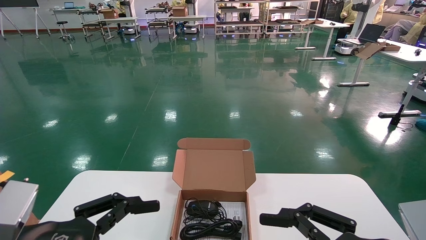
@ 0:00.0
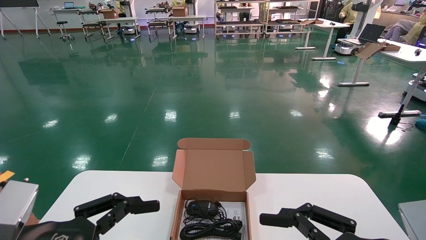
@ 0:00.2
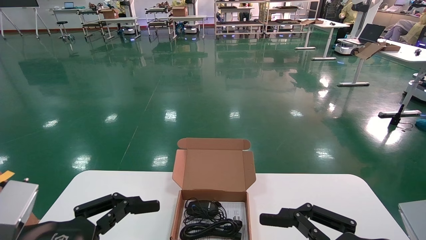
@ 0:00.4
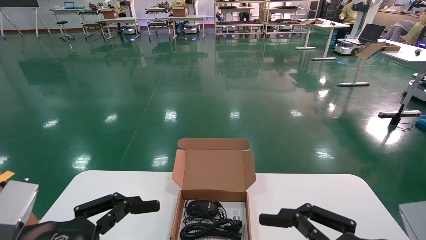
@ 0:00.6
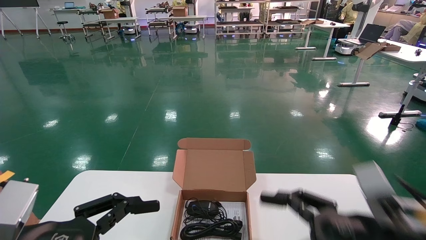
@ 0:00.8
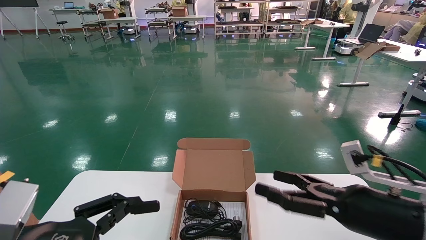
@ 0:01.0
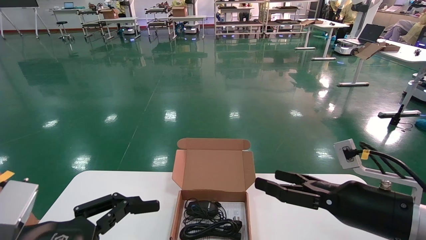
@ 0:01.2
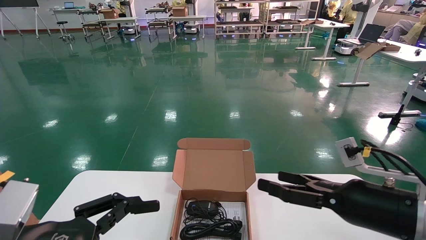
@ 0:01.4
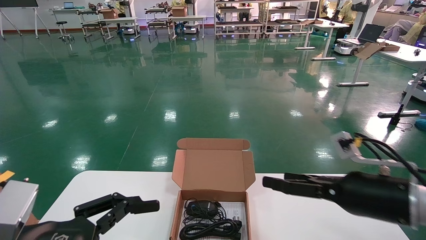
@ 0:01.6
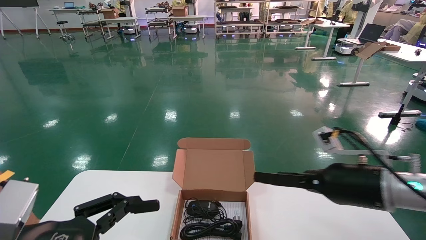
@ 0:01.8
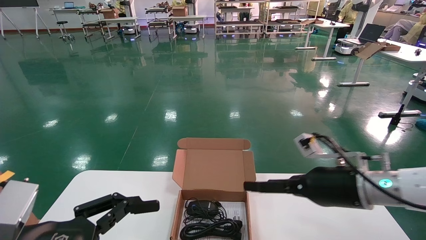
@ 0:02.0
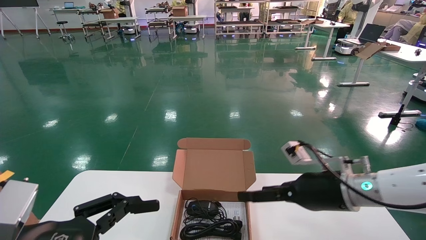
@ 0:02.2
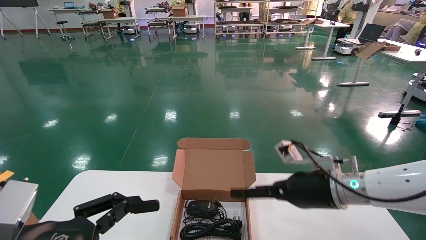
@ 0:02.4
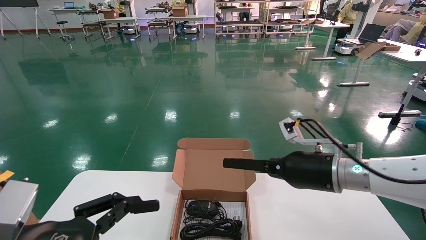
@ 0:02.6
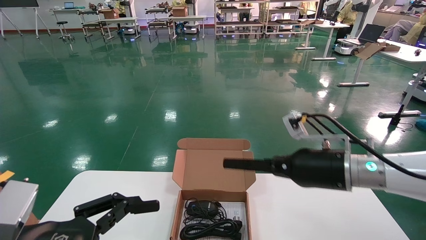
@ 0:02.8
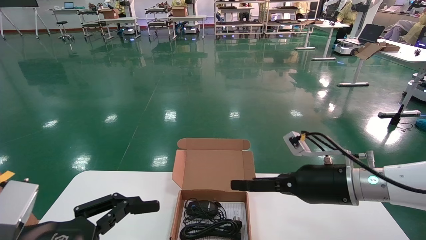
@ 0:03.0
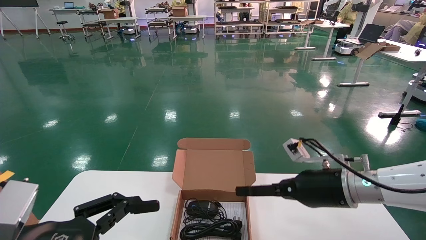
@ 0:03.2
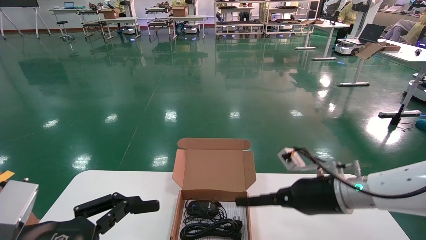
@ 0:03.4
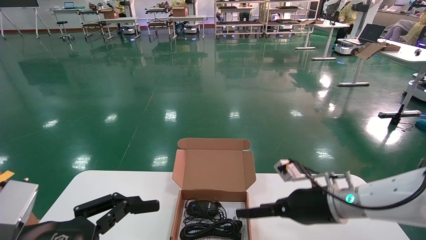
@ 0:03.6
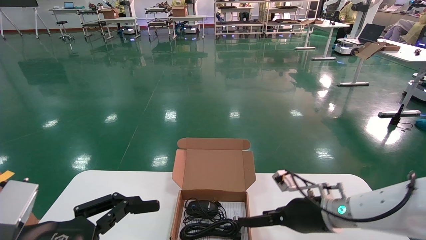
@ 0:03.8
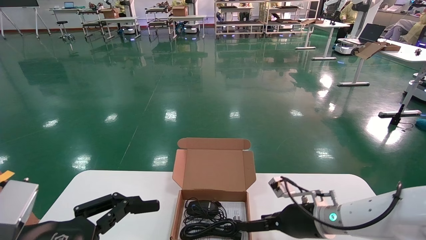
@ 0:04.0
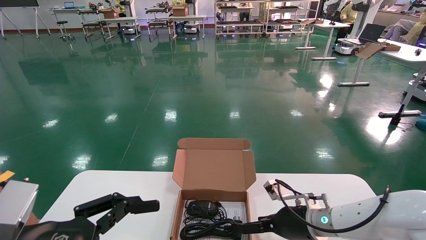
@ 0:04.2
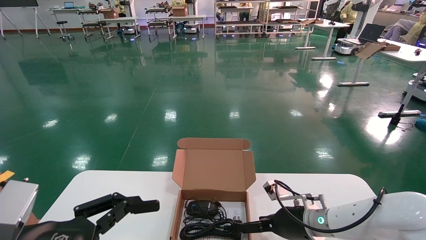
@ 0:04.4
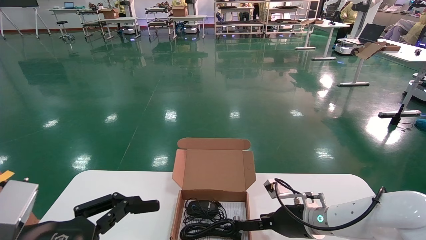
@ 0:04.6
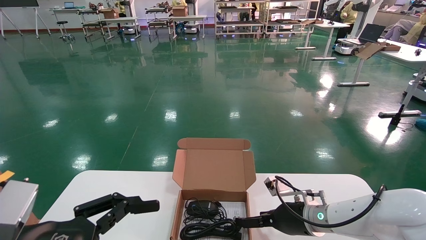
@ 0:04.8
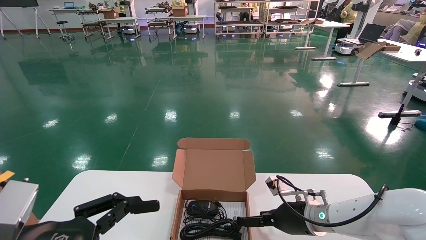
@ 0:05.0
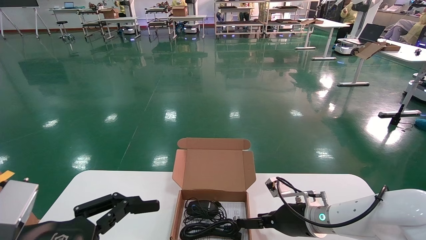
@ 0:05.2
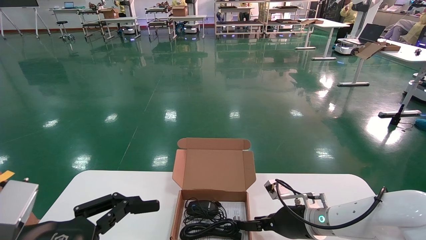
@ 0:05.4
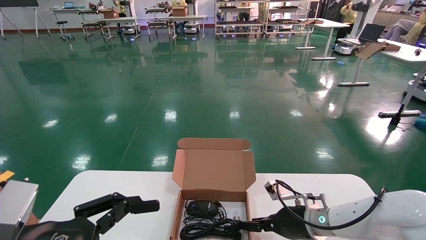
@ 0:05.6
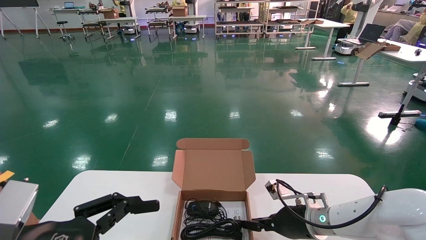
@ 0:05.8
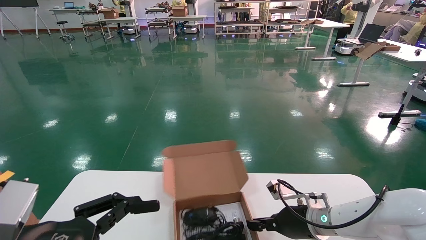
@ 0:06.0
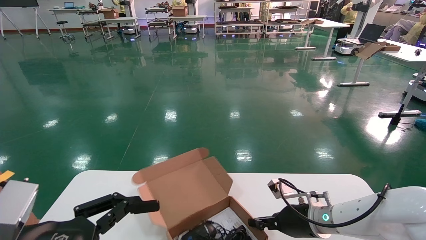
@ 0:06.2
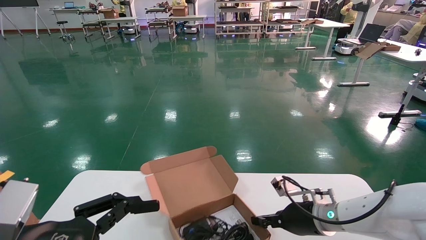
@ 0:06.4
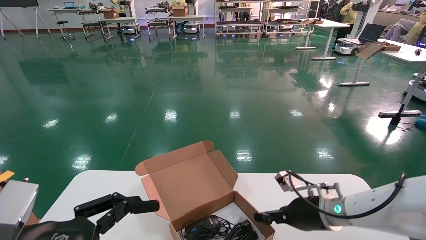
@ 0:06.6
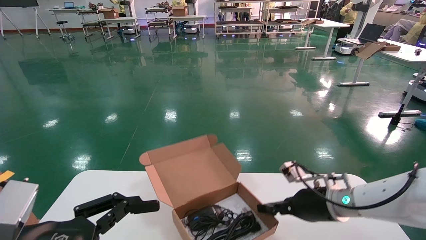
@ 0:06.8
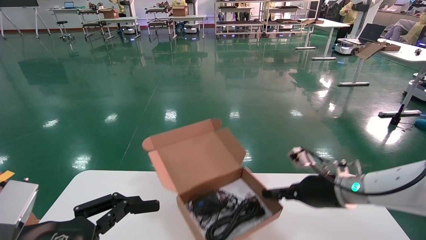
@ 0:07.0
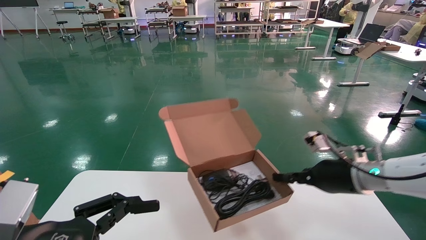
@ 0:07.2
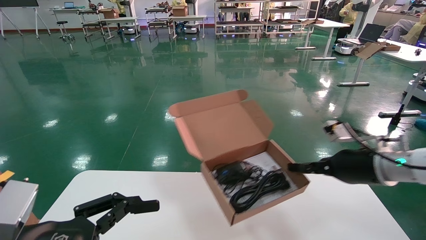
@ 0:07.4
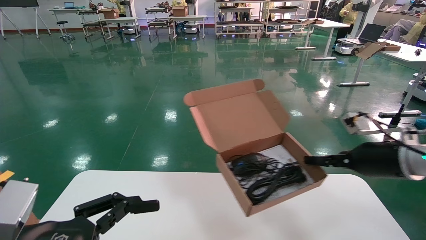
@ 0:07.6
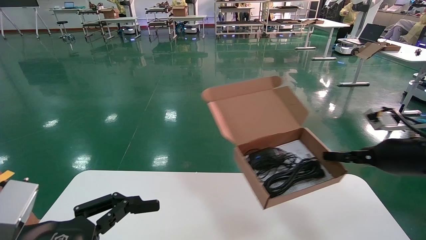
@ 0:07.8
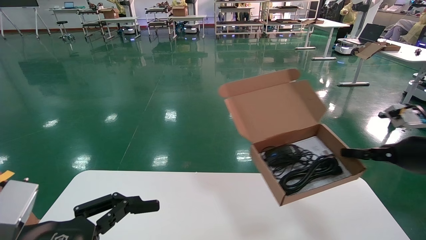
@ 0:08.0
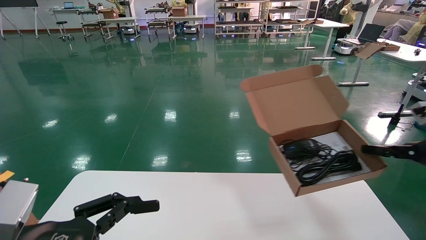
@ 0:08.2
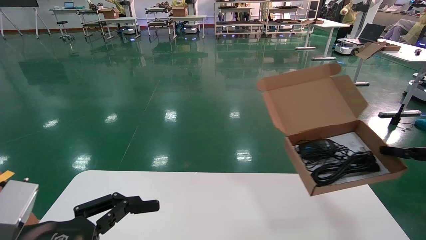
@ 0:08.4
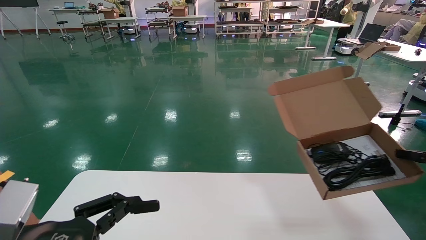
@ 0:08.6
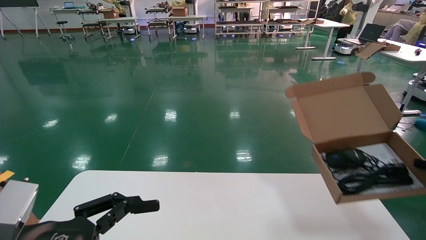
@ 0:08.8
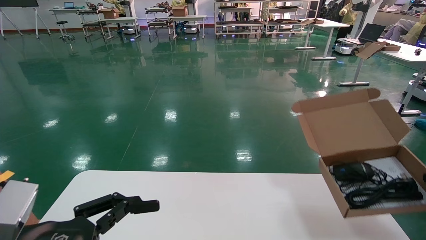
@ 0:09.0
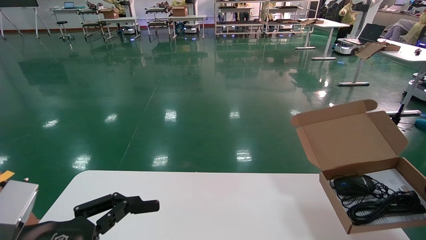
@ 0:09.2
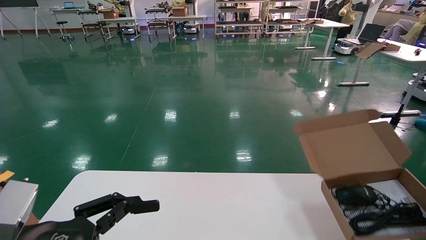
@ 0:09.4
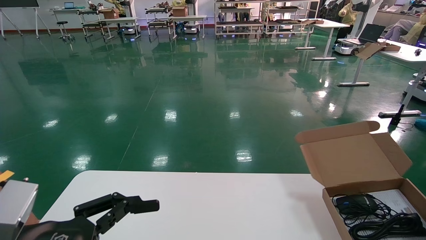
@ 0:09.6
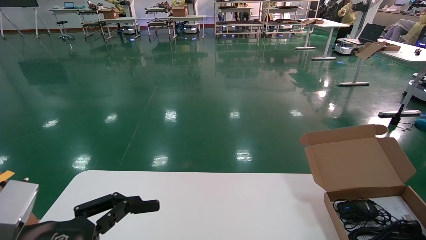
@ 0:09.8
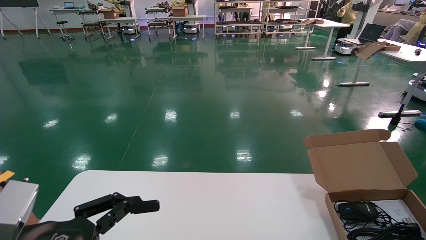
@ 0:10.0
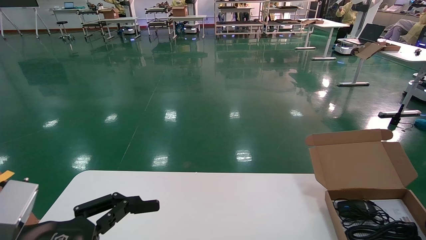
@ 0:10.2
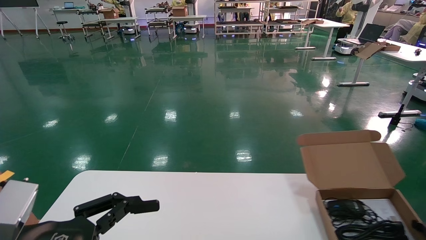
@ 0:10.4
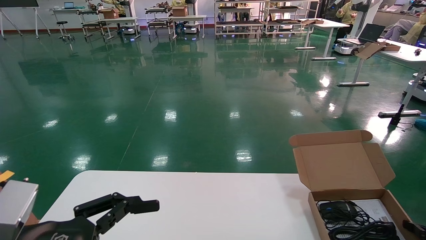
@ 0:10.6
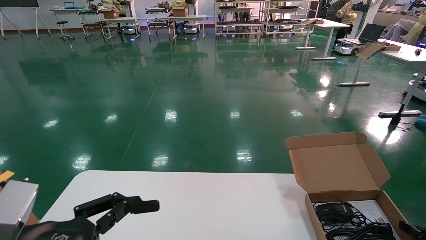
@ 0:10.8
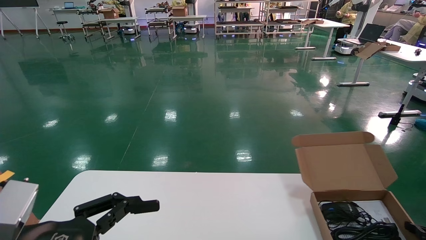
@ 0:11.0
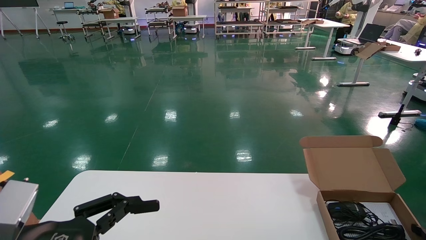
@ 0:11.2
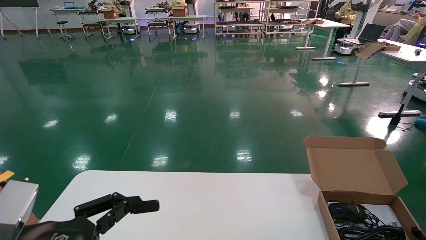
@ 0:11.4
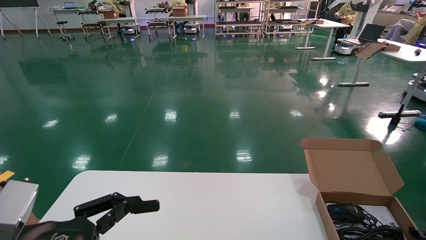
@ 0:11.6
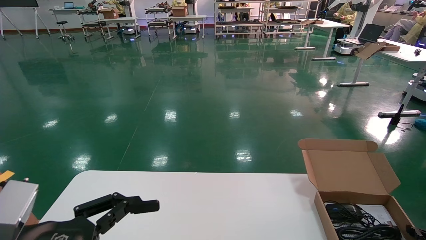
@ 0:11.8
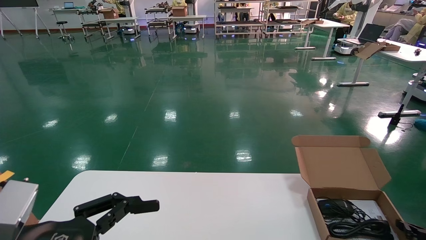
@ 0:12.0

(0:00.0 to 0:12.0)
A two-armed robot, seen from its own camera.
Task of the whole recording: move the position of the storage box with accessories on the table.
Step, 0:00.8 - 0:06.2: Grab and pick up the open mouse box from the accessory packaging area.
0:00.0 - 0:01.6: The right gripper is displaced forward by some 15 cm.
0:01.6 - 0:03.0: The right gripper travels forward by roughly 5 cm.
0:03.0 - 0:04.4: The right gripper is displaced downward and forward by approximately 15 cm.
0:04.4 - 0:06.0: The right gripper closes up.
0:06.0 - 0:07.6: The right gripper travels upward and to the right by about 20 cm.
0:07.6 - 0:09.0: The right gripper is displaced to the right by some 20 cm.
0:09.0 - 0:10.4: The right gripper goes some 15 cm downward.
0:10.4 - 0:12.0: The grippers move only a little.

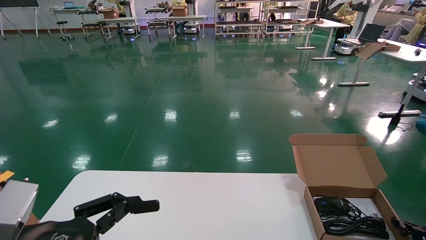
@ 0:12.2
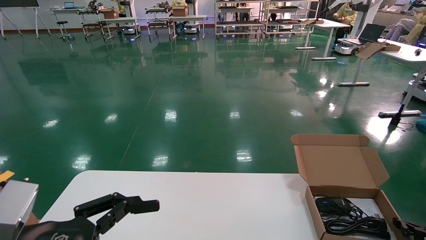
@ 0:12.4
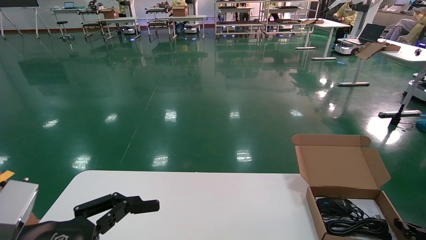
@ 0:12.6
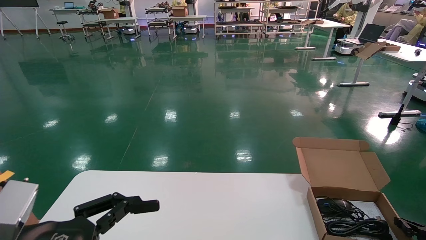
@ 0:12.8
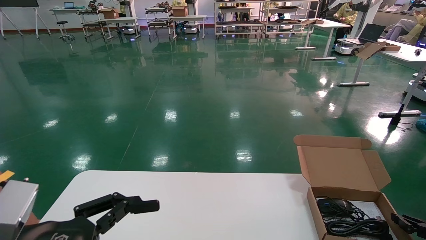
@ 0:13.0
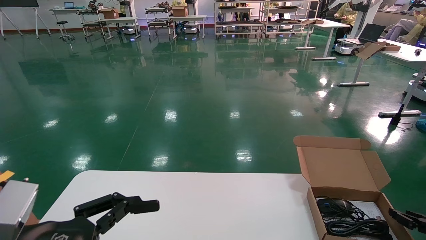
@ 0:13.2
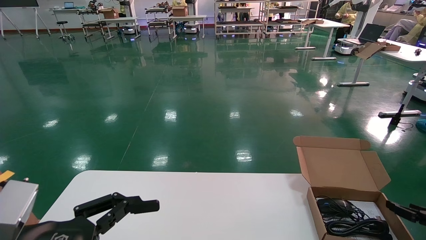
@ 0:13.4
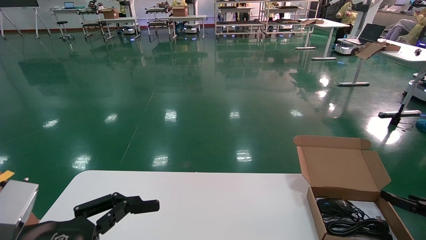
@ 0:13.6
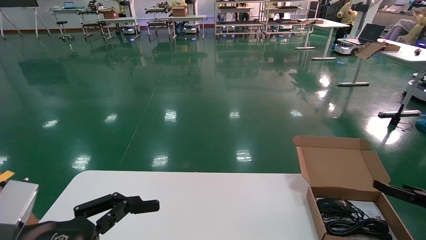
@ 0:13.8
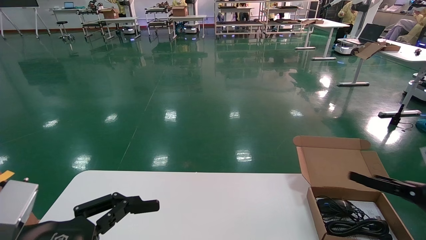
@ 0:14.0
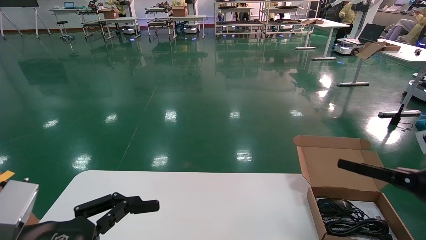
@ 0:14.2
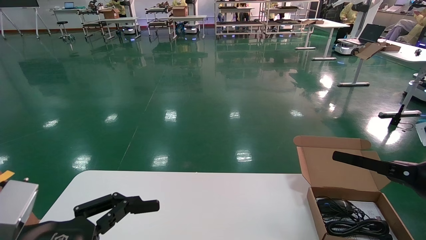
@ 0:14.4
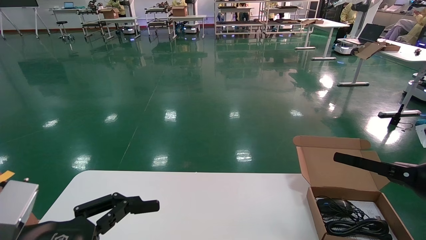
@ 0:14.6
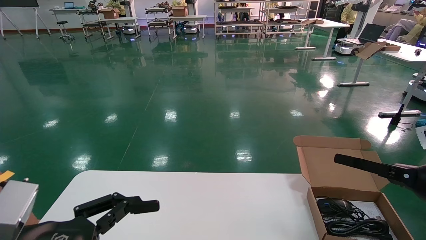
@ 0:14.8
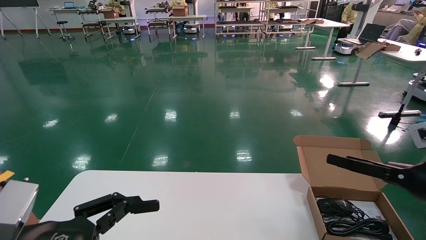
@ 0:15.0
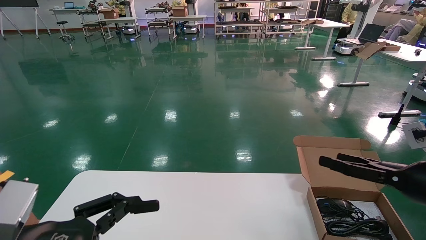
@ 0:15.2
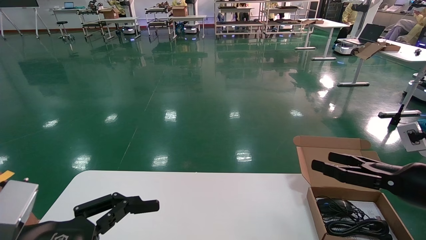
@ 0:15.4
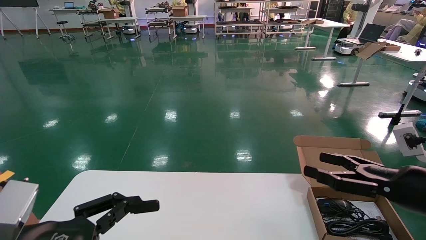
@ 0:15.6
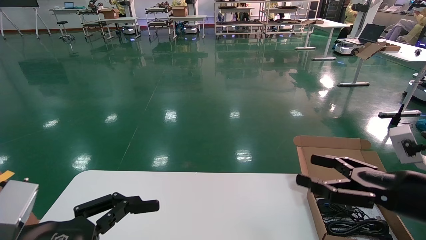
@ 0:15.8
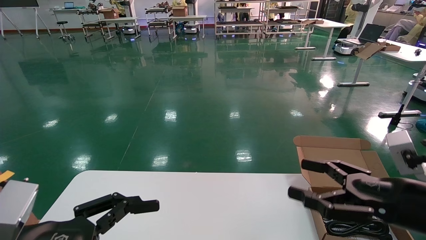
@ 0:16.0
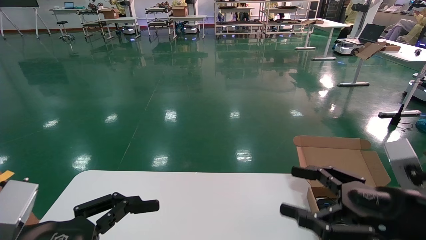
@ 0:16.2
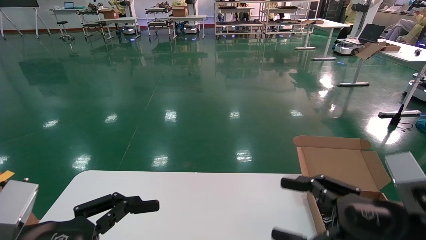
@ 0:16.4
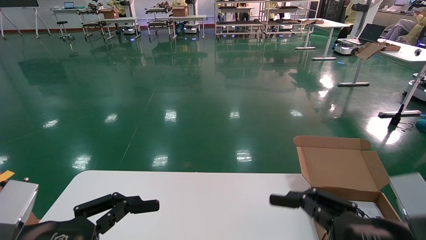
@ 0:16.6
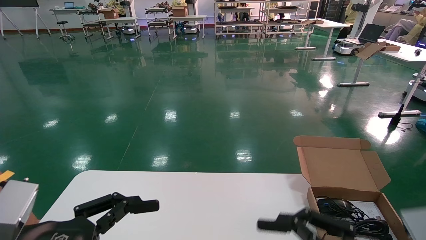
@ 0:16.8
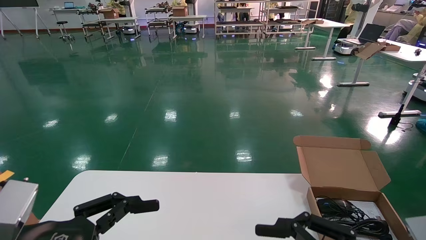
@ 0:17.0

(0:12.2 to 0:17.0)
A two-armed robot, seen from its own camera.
Task of the whole recording: move the position of the storage box with accessories on the table.
0:12.2 - 0:13.8: The right gripper shifts about 10 cm upward, and opens up.
0:13.8 - 0:15.4: The right gripper travels to the left, upward and backward by roughly 15 cm.
0:15.4 - 0:17.0: The right gripper heads backward and to the left, covering approximately 20 cm.
